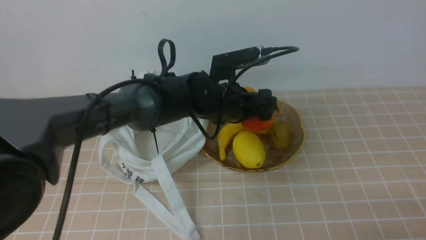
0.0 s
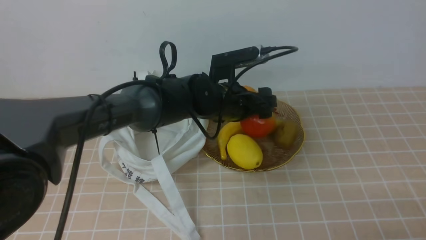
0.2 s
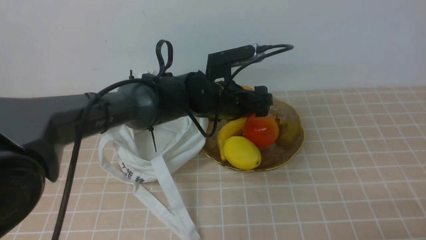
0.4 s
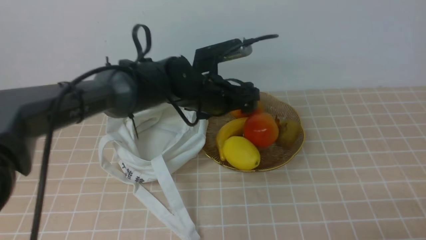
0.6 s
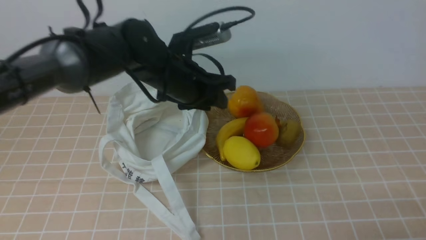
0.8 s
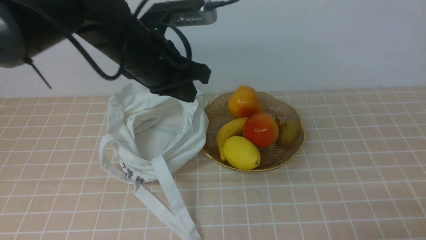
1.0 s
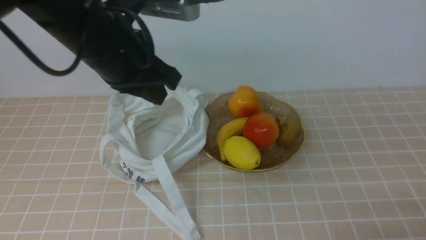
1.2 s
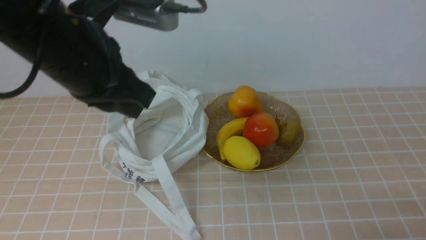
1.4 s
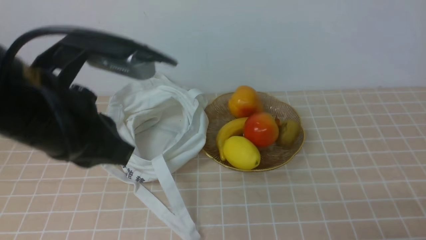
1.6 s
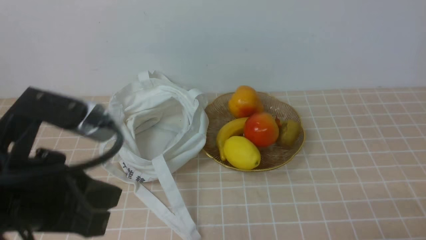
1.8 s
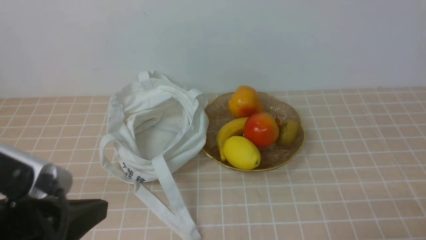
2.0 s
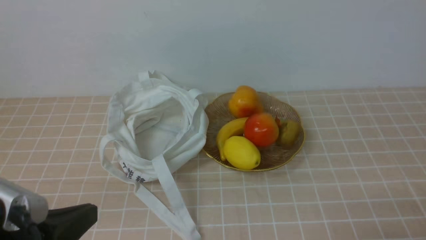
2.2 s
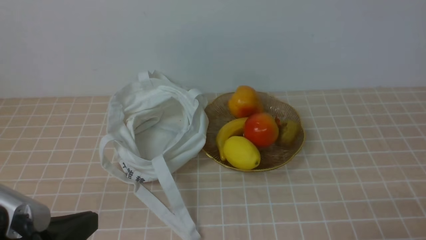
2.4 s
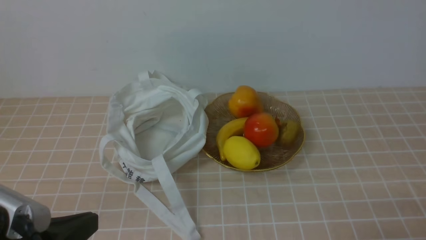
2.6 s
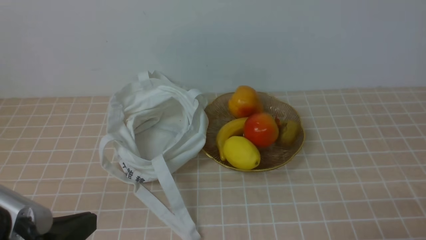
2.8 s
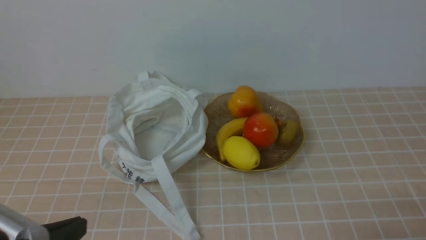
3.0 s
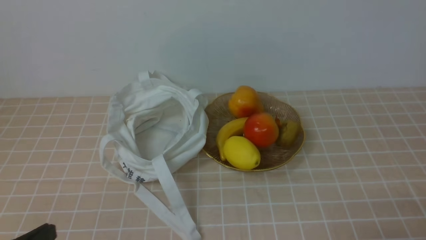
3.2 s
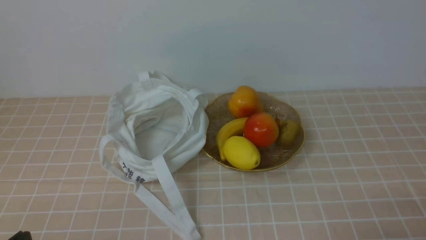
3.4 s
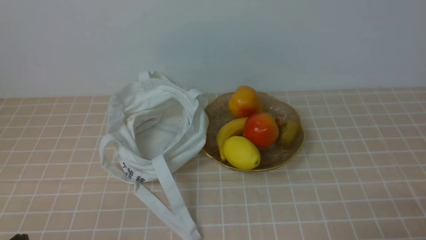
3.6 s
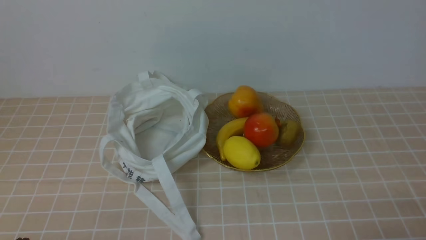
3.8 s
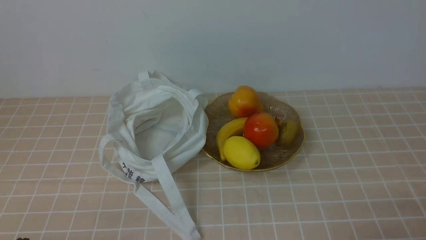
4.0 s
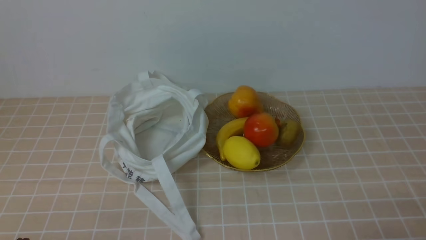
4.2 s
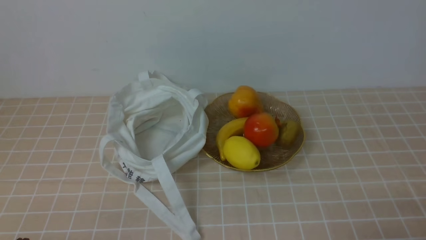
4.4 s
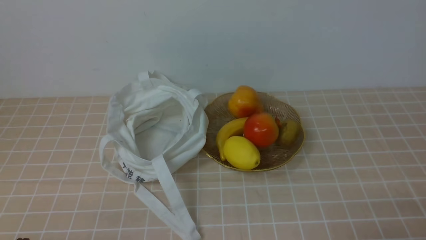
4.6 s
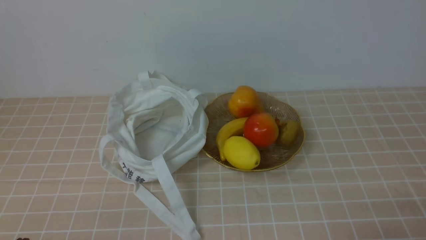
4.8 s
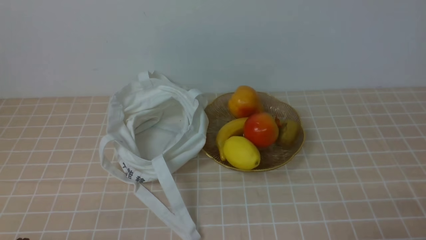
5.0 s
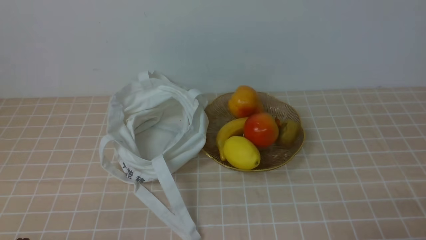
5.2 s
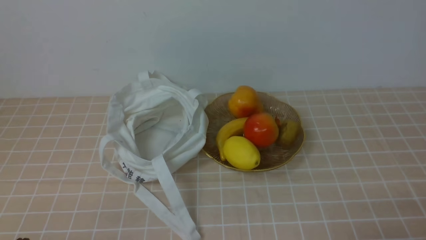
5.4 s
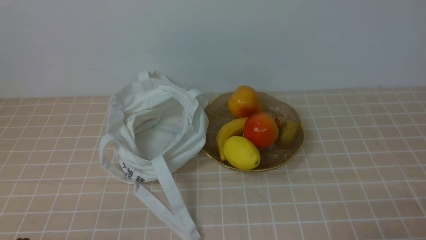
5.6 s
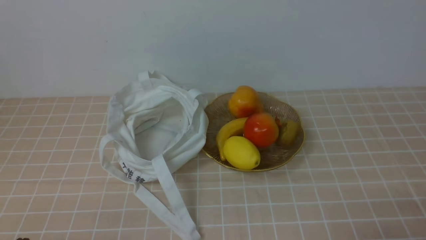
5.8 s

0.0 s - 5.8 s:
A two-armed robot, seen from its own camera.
0.0 s - 1.4 s: The left gripper is displaced upward, to the left and backward by about 25 cm, and closes its fingers.
1.4 s - 2.8 s: The left gripper moves backward and downward, some 20 cm.
2.8 s - 4.4 s: The left gripper heads downward, covering about 10 cm.
4.4 s - 5.8 s: Both grippers stay about where they are.
